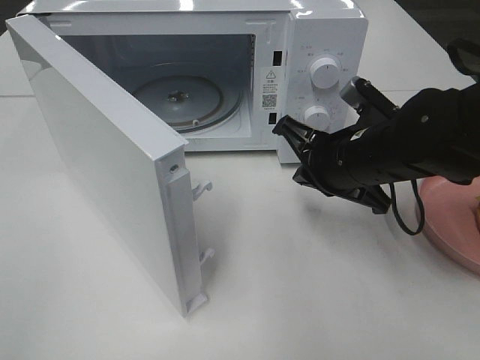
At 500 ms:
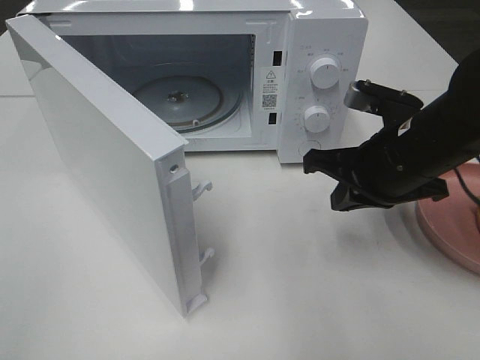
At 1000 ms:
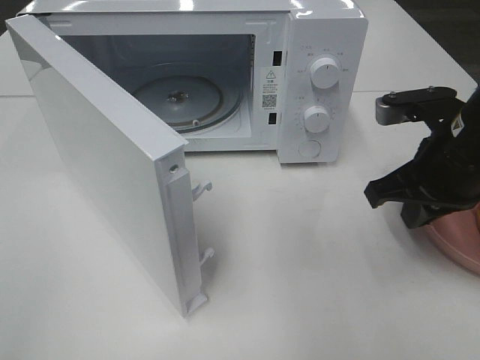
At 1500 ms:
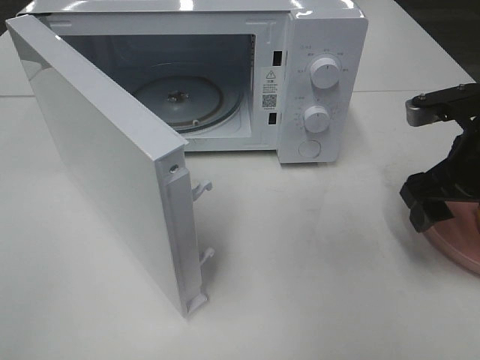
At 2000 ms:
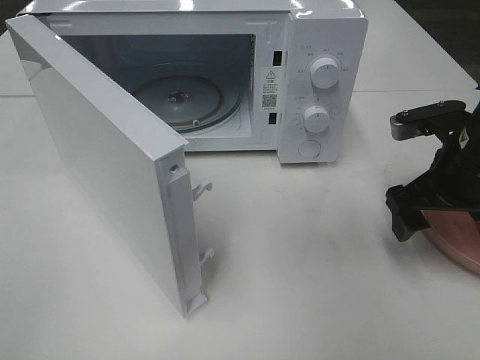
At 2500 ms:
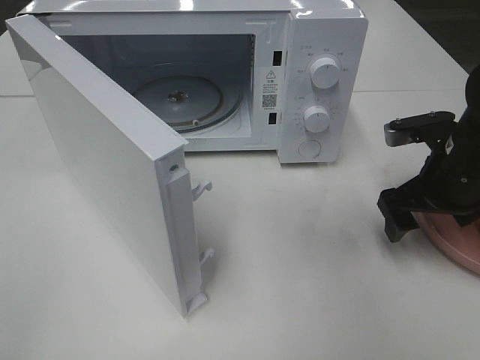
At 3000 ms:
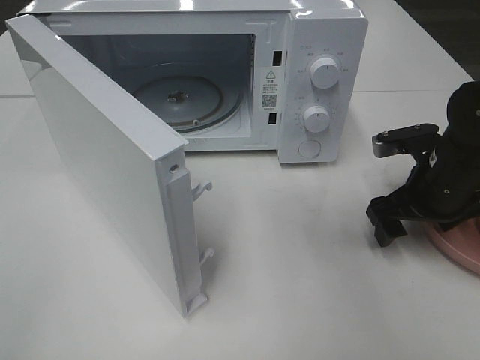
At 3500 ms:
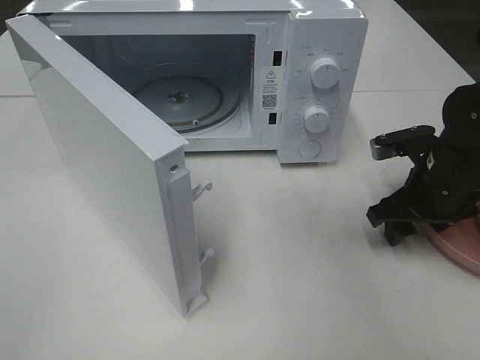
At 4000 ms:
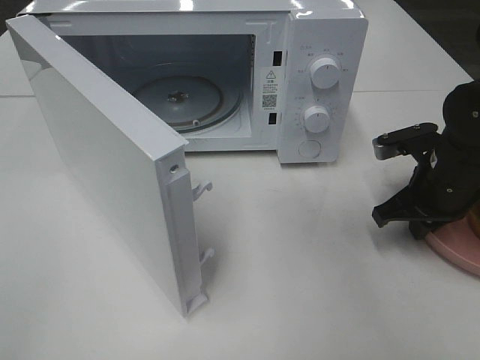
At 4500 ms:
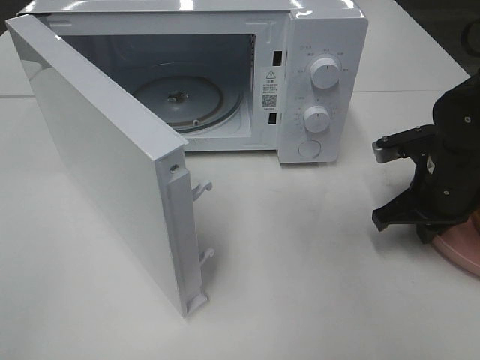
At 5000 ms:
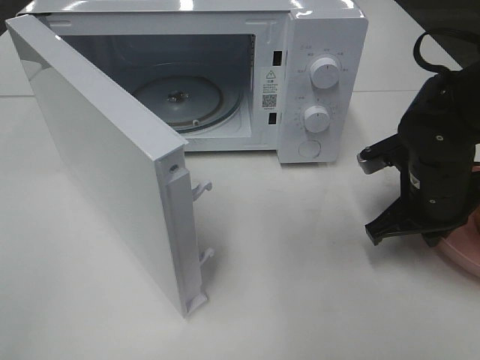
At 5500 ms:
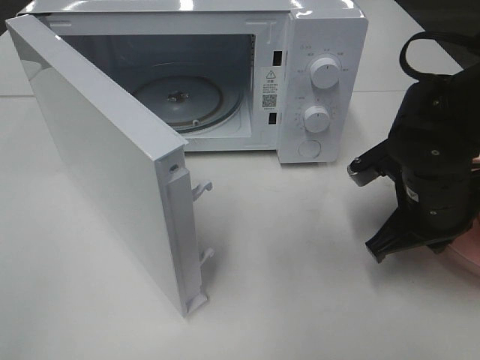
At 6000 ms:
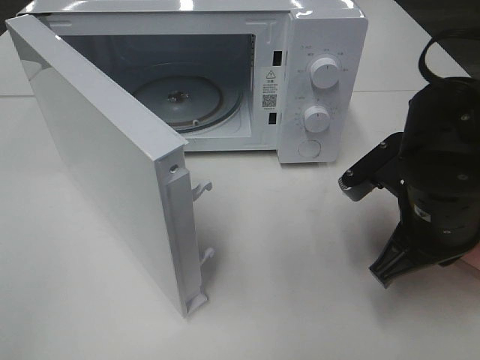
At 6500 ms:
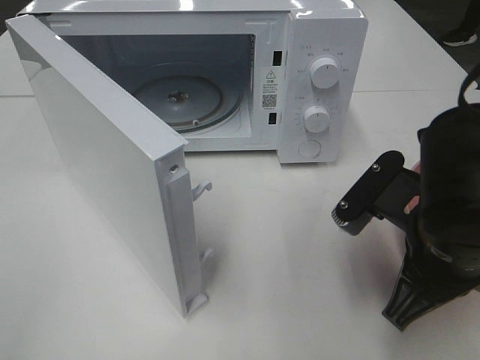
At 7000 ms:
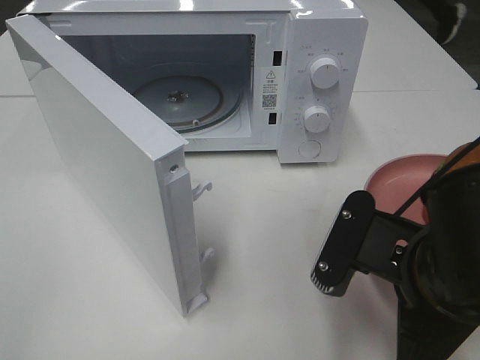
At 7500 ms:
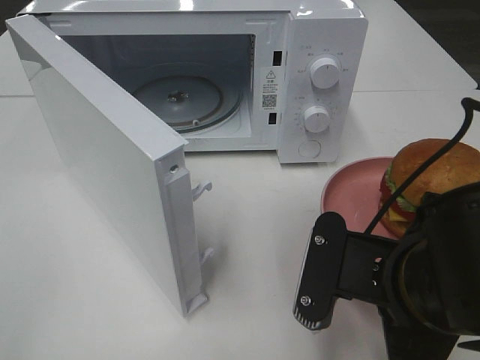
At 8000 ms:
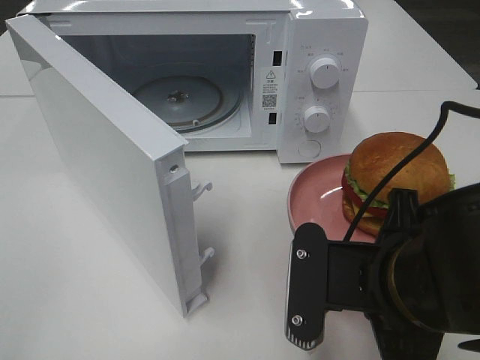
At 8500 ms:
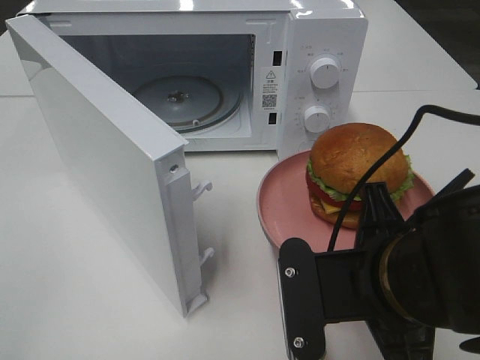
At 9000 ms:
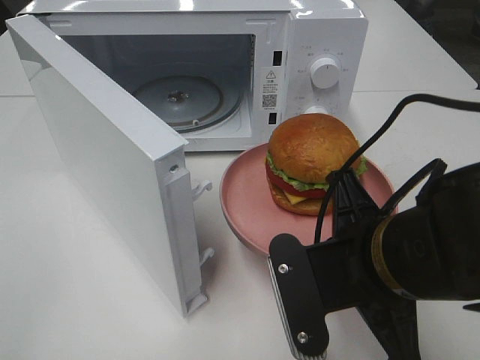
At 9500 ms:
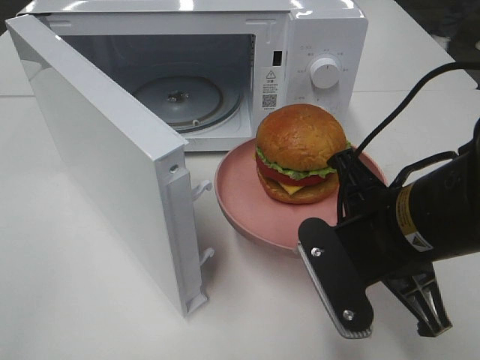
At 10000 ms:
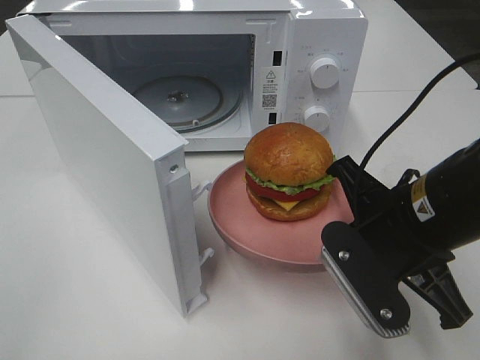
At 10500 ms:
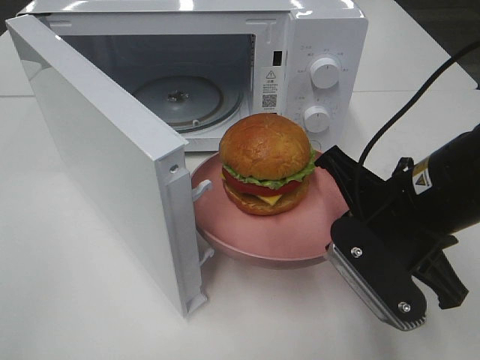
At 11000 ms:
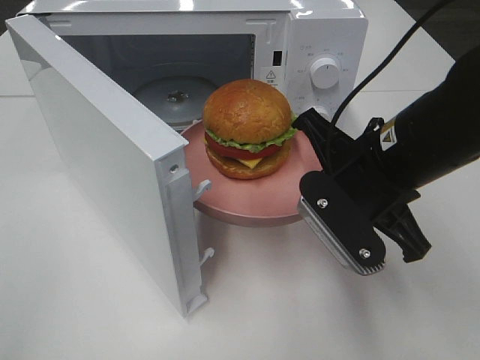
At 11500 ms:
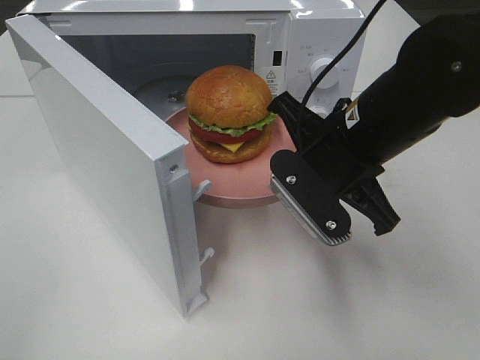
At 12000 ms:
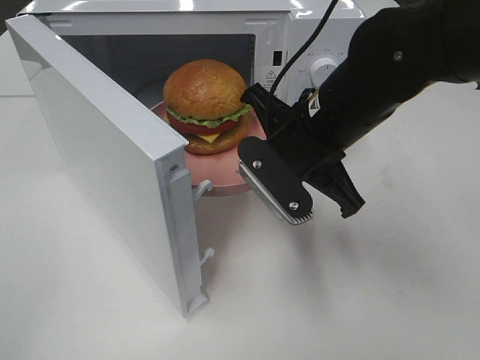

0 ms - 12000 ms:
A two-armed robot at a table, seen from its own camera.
Task of the whole recording: Heat the burger.
Step, 0 ms - 4000 ms: Right hand: grab the plate with the hamburger.
0 ms - 2000 ms: The right gripper is displaced to the right by some 10 cm, and opens.
2000 ms - 4000 ms: The right gripper moves downward, about 5 cm, and closes up.
4000 ms - 6000 ms: The right gripper shifts approximately 10 cm backward and to the left.
6000 ms - 8000 ms: The right gripper heads backward and to the left, covering roughly 10 cm.
8000 ms - 10000 ms: The right gripper is displaced forward by some 5 cm.
10000 ms - 12000 ms: The right gripper is displaced forward and to the left by some 10 cm.

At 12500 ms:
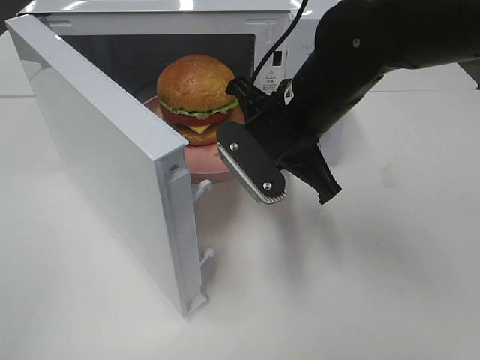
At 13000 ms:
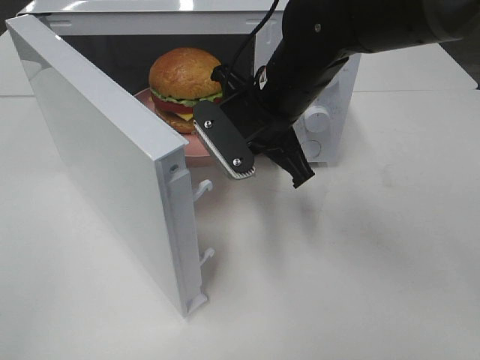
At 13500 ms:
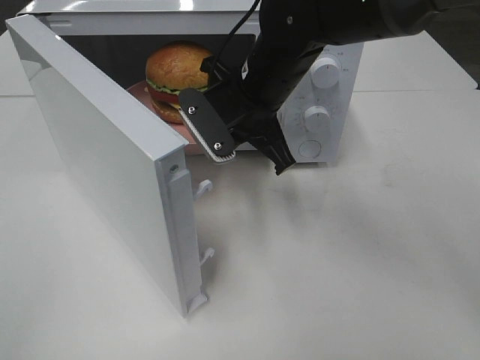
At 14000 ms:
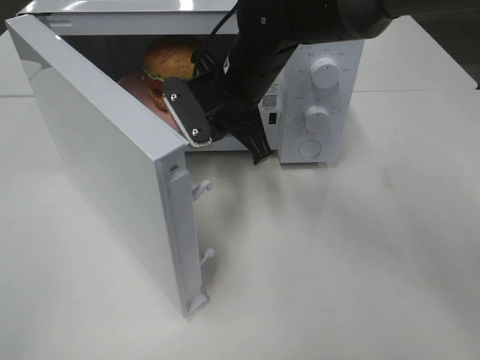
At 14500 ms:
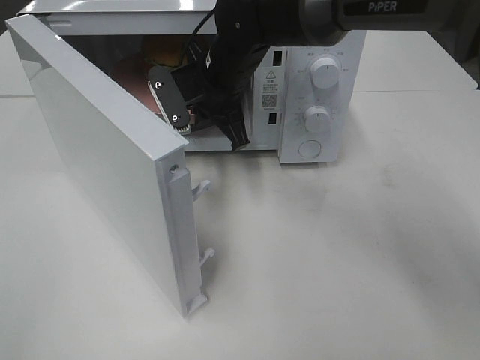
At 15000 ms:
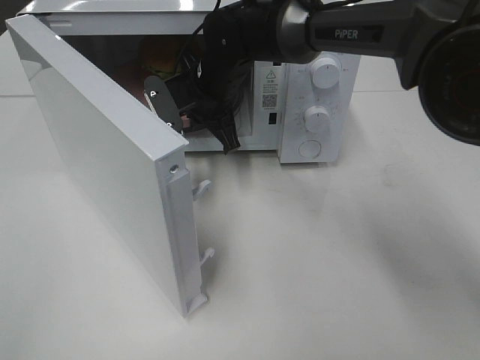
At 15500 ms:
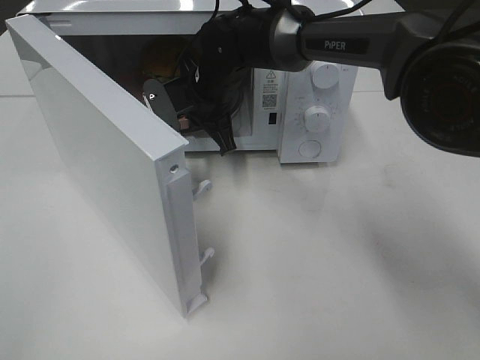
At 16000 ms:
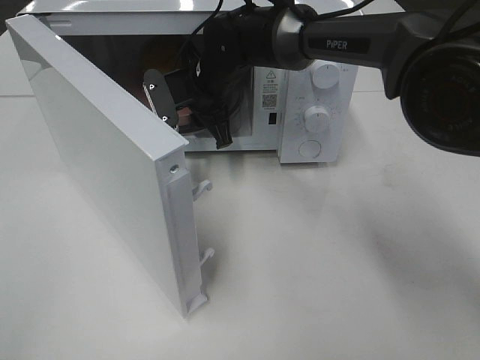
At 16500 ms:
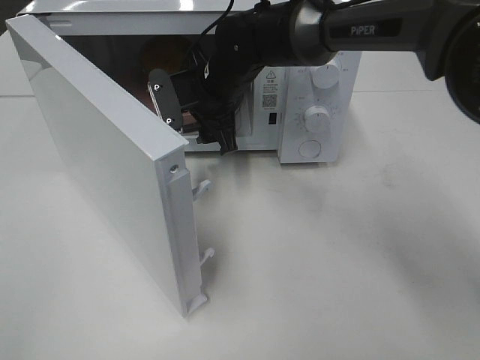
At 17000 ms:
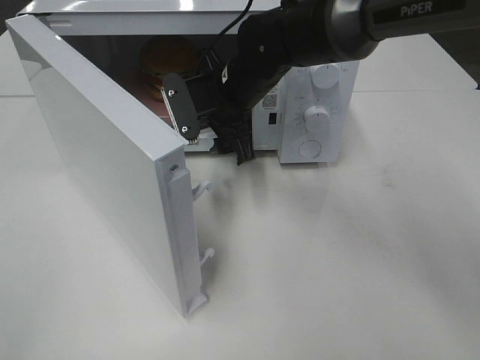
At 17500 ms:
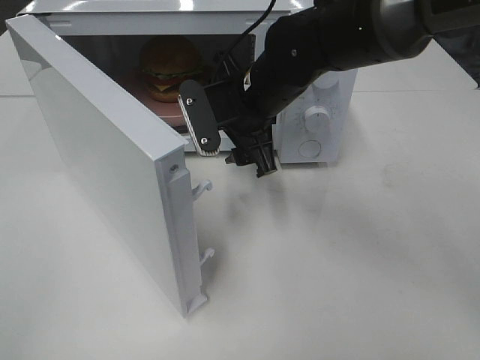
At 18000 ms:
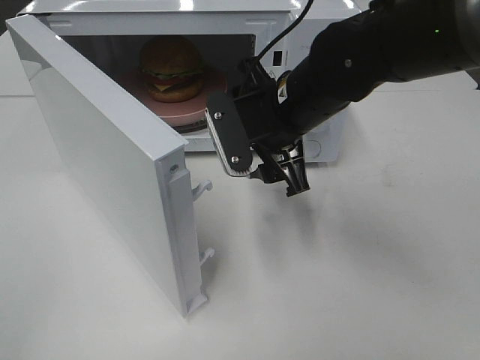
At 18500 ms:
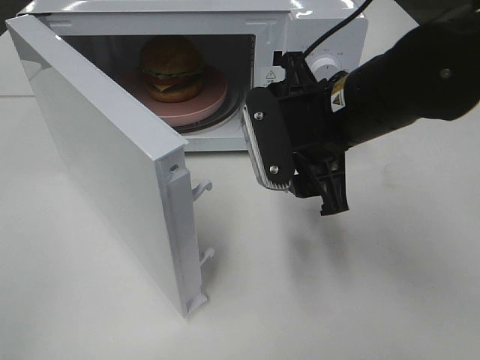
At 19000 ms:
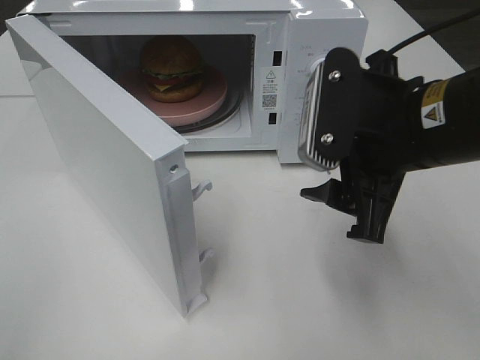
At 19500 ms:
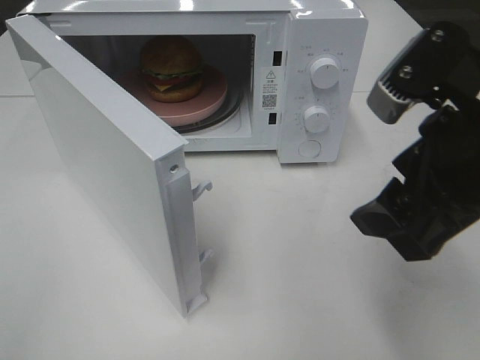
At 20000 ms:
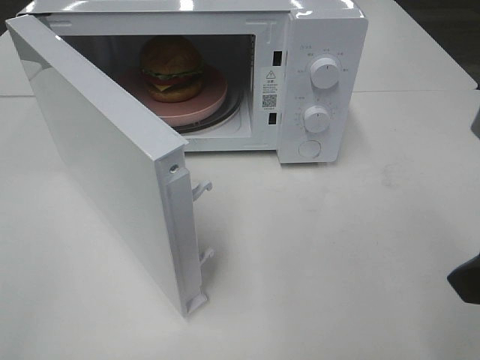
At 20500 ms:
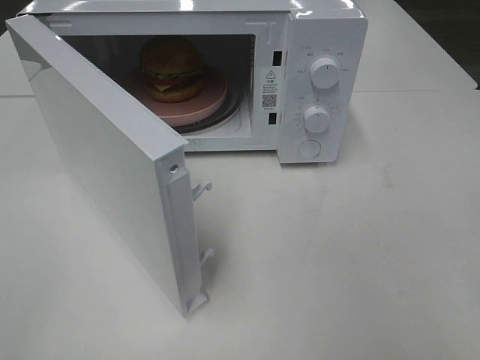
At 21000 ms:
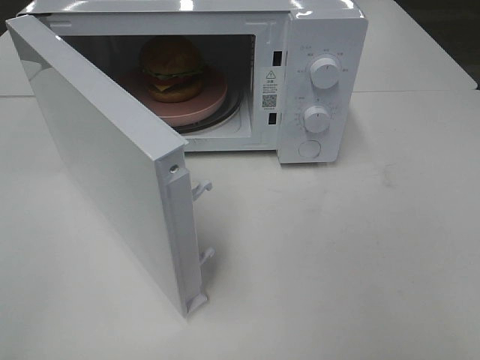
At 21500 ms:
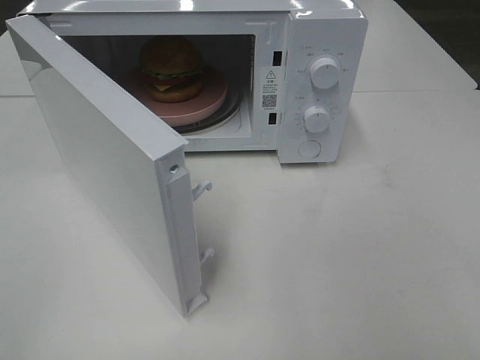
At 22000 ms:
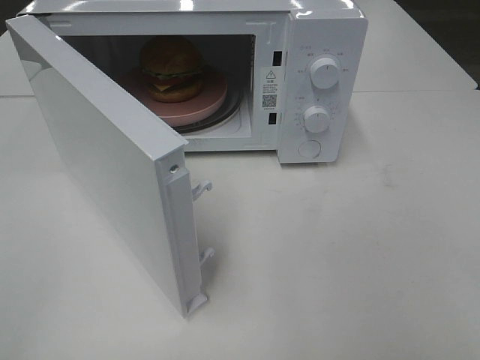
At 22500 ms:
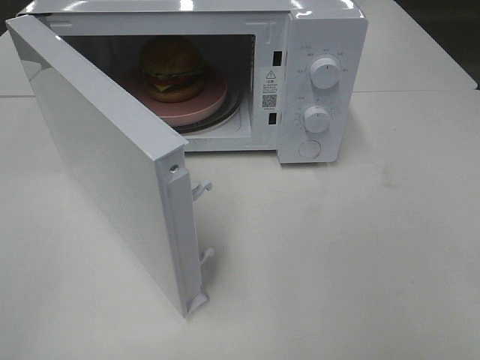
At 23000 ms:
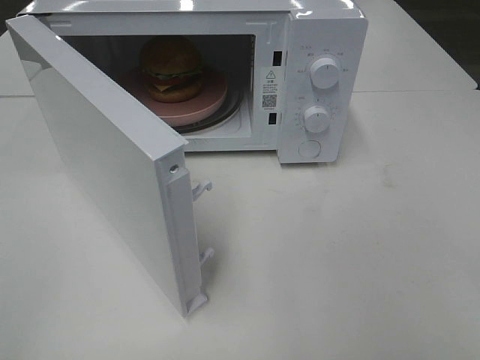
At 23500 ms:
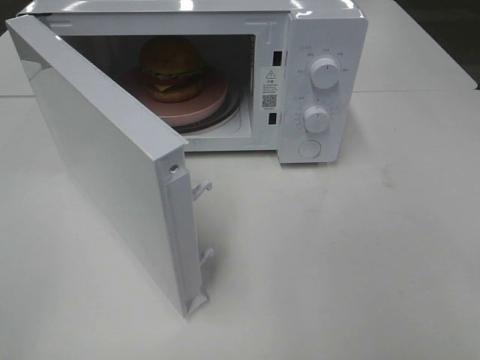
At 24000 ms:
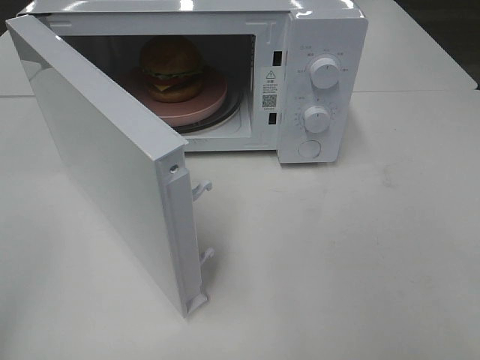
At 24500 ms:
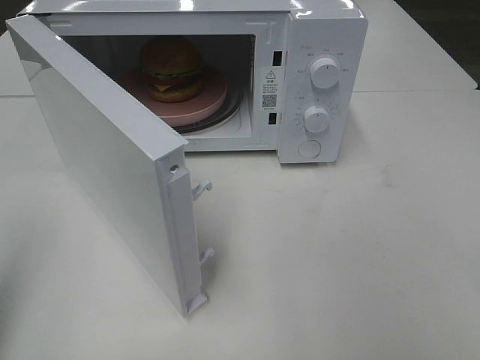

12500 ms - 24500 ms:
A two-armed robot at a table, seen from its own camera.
Task of the whole recording: Heat the burger.
Step, 12500 ms - 15500 ms: Right hand: place the plate in the microwave.
12500 ms - 14500 ms: The right gripper heads forward and to the left, covering approximately 15 cm.
14500 ms - 16500 ms: The right gripper opens up.
16500 ms - 18500 ms: The right gripper shifts roughly 20 cm backward and to the right.
18500 ms - 20500 ms: The right gripper travels backward, to the right and upward by some 25 cm.

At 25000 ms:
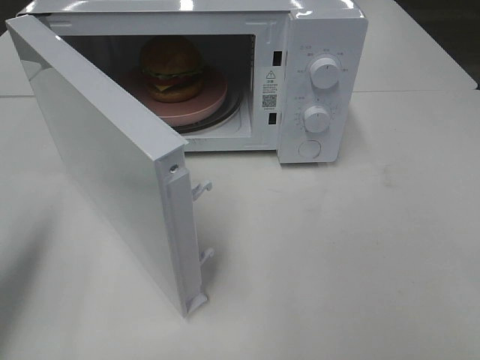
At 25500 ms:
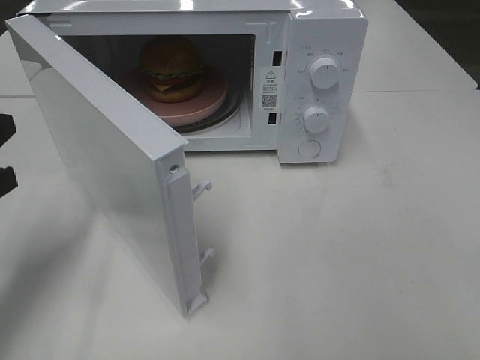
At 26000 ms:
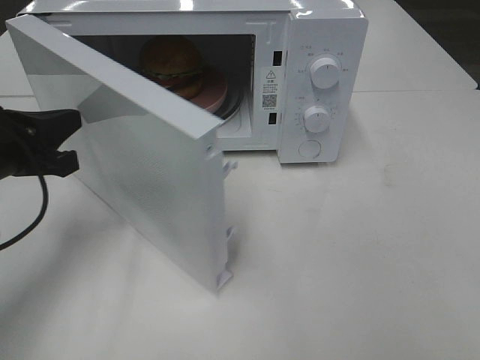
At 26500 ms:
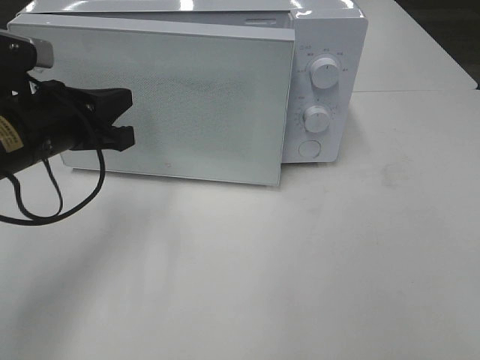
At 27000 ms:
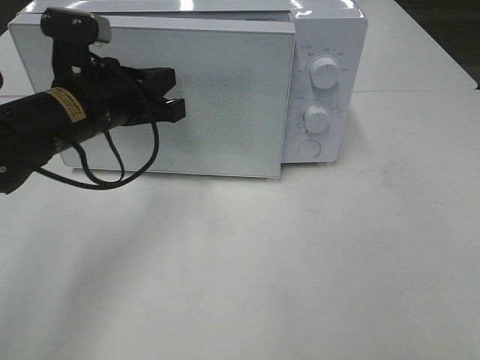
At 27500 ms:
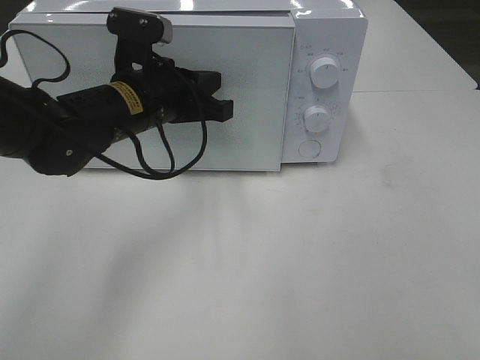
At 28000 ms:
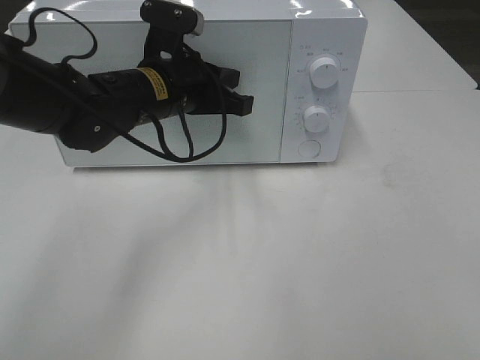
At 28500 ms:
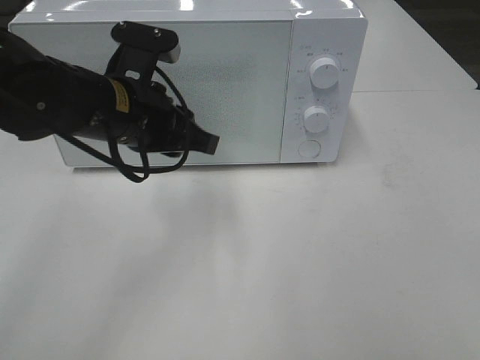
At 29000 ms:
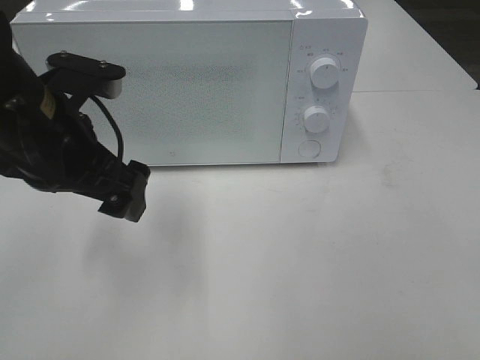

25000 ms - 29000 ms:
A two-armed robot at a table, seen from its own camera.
Task of the whole recording: Heat the burger.
Step, 25000 ms - 28000 ms: Left hand: close the microwave door.
25000 ms - 27000 ms: The left gripper shifts some 25 cm to the right and forward.
27000 ms - 29000 ms: The left gripper travels backward by about 5 cm, and opens.
